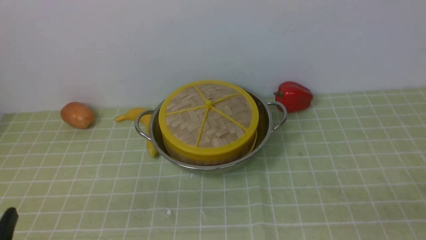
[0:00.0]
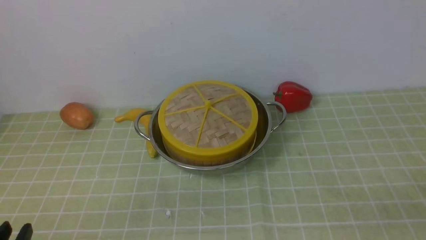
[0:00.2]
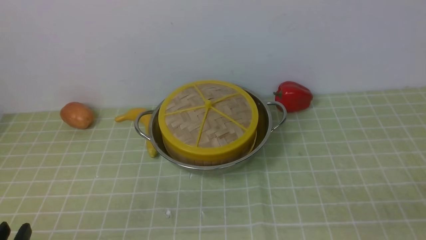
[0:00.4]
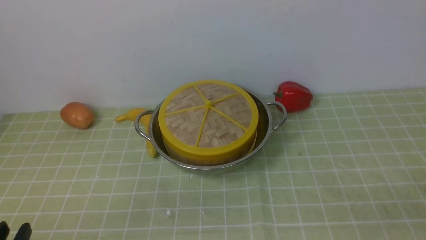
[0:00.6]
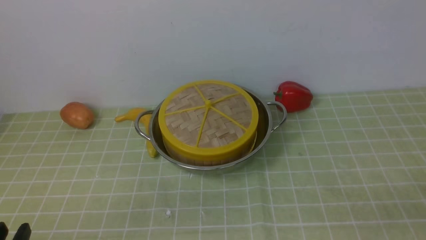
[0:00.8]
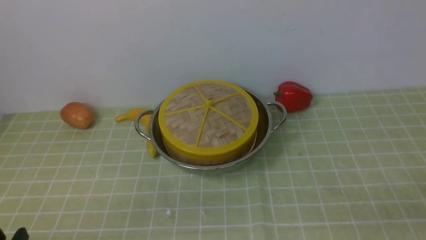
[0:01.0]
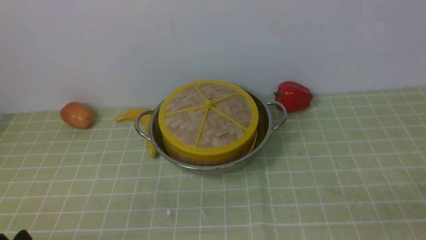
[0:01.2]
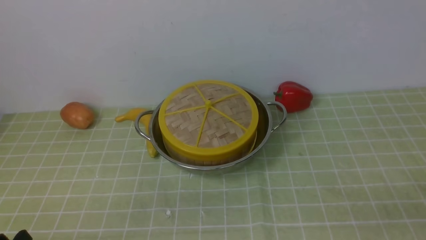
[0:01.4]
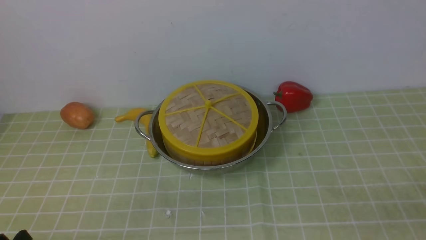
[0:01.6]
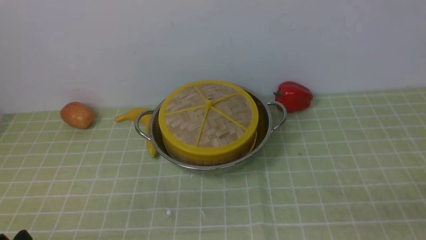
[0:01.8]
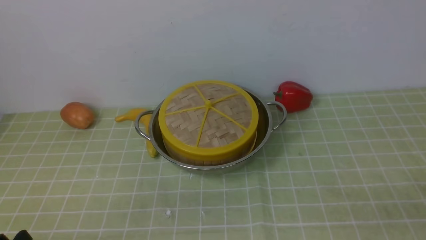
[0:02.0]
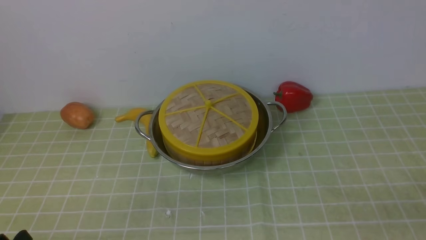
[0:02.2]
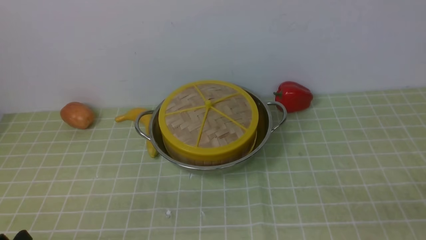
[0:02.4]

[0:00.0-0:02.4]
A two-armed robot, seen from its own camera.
Task of the whole recording: place the steamer in the pot on the green tablecloth, and put the lid on the steamer.
0:01.2 to 0:02.4: The two grippers keep their place.

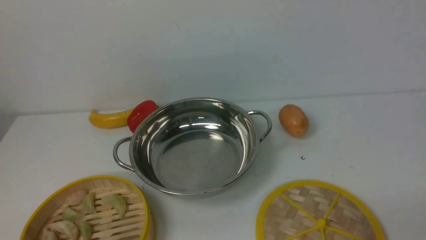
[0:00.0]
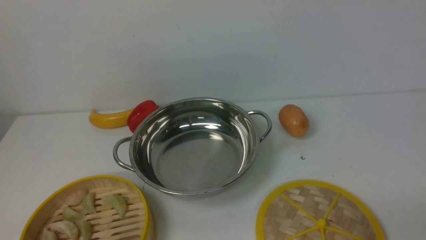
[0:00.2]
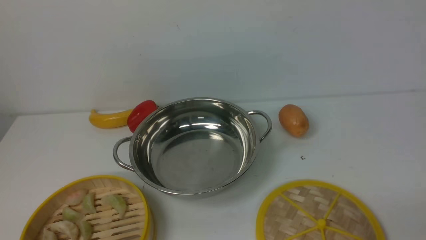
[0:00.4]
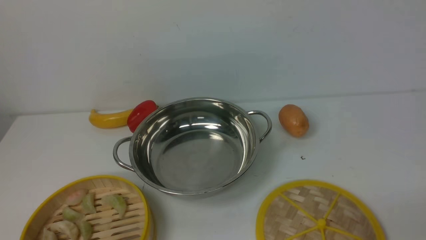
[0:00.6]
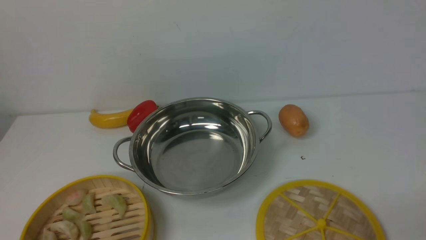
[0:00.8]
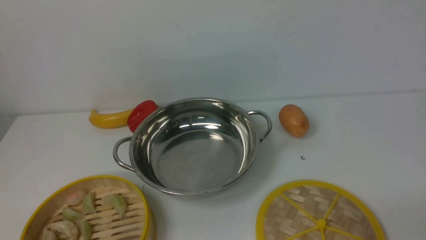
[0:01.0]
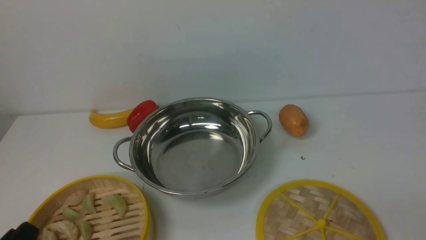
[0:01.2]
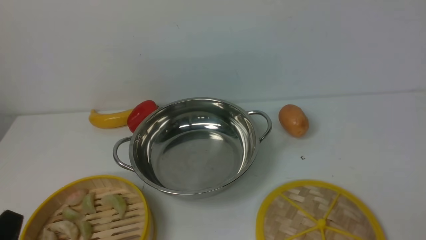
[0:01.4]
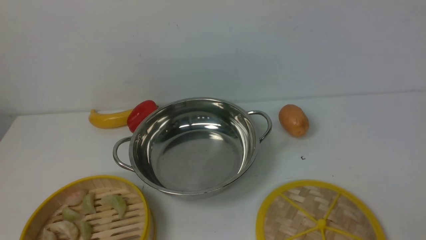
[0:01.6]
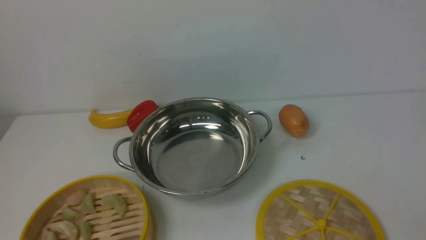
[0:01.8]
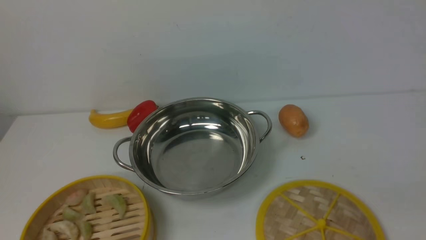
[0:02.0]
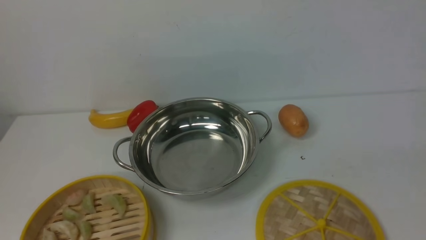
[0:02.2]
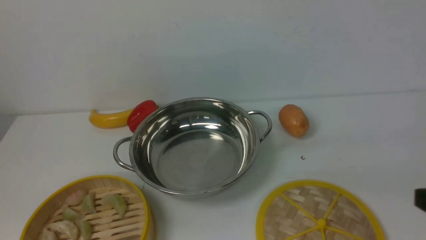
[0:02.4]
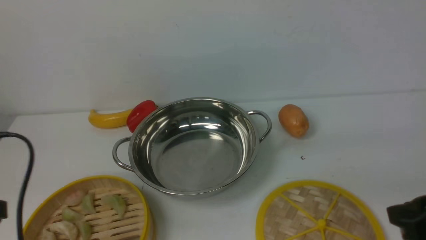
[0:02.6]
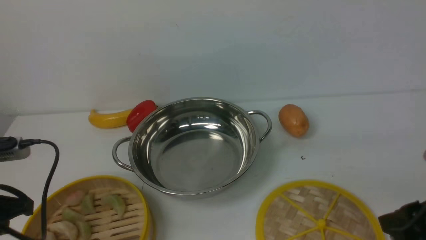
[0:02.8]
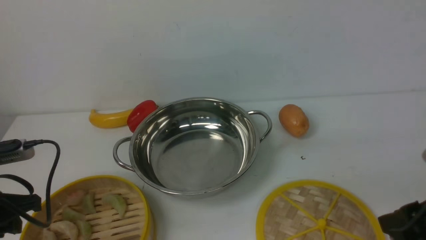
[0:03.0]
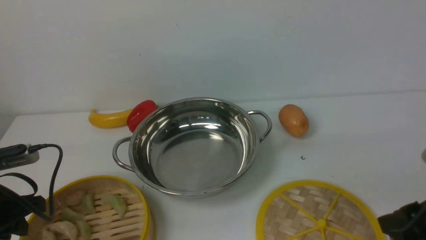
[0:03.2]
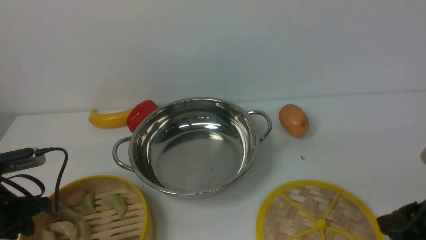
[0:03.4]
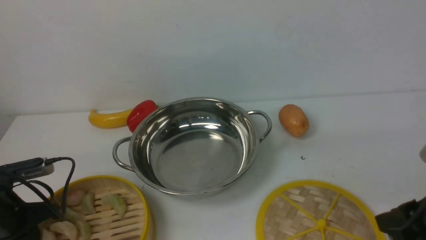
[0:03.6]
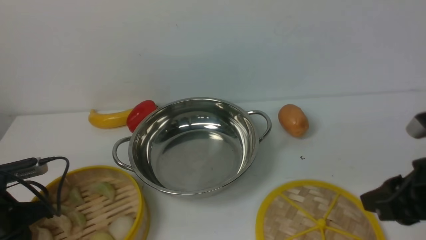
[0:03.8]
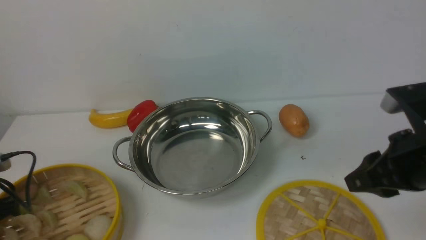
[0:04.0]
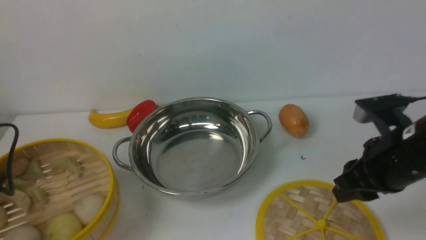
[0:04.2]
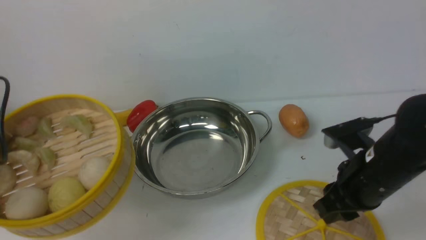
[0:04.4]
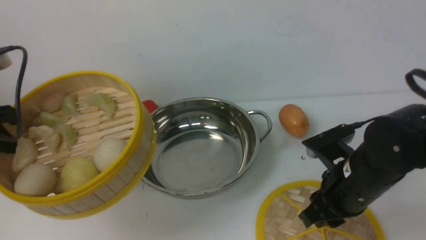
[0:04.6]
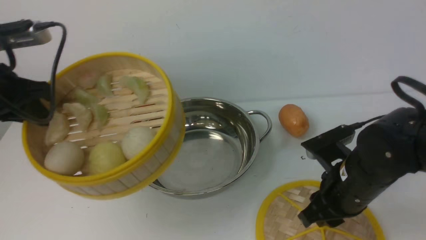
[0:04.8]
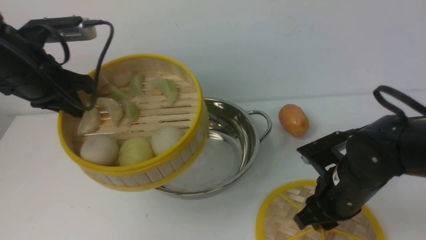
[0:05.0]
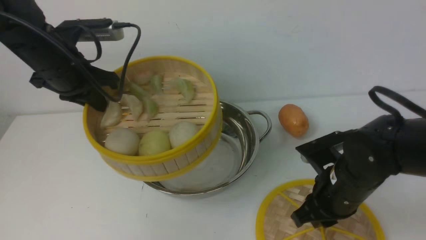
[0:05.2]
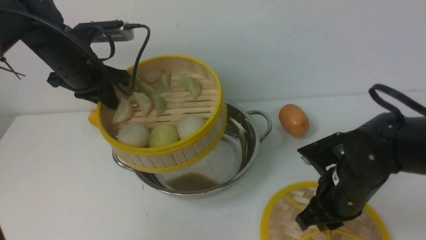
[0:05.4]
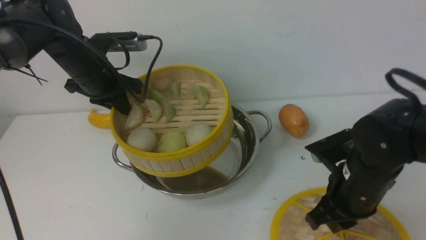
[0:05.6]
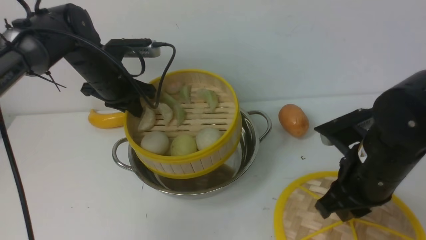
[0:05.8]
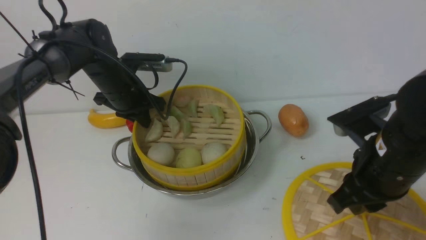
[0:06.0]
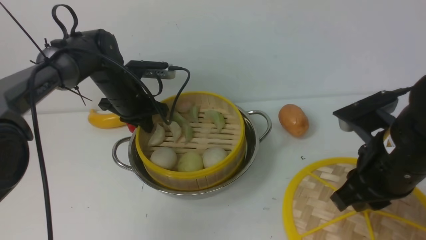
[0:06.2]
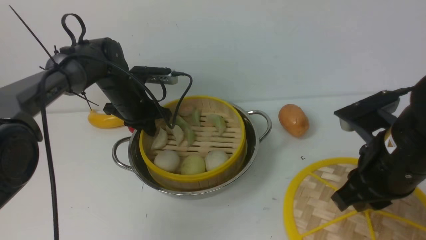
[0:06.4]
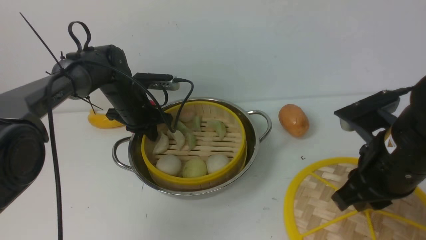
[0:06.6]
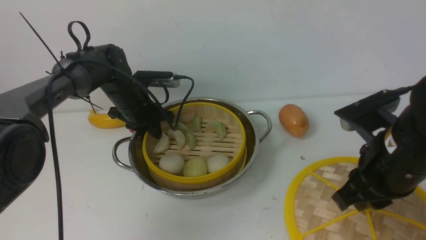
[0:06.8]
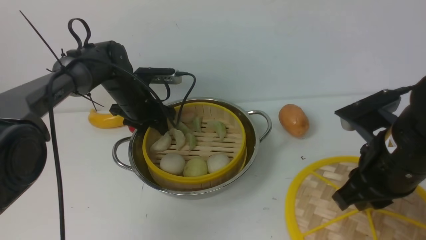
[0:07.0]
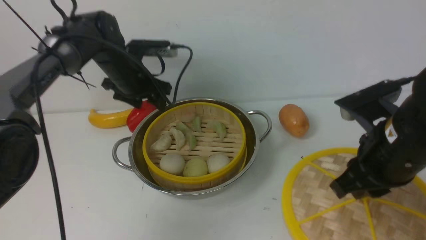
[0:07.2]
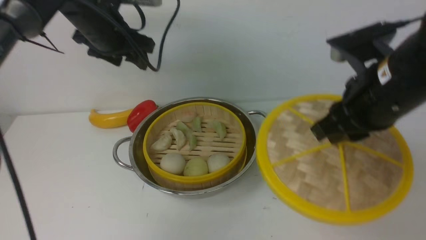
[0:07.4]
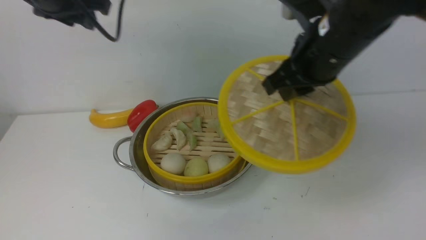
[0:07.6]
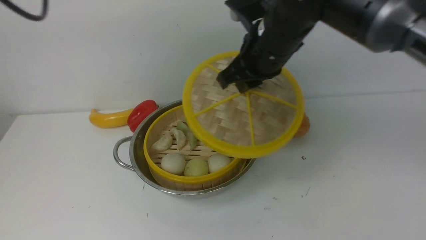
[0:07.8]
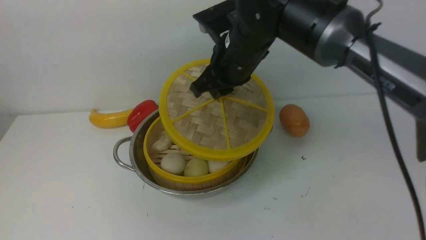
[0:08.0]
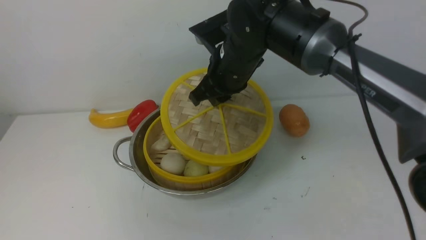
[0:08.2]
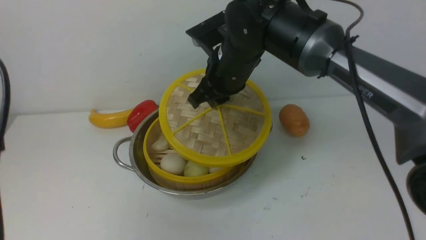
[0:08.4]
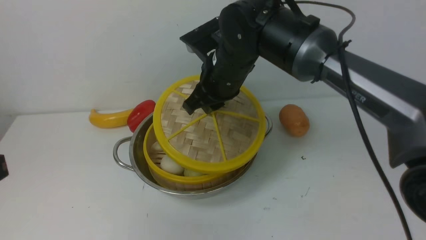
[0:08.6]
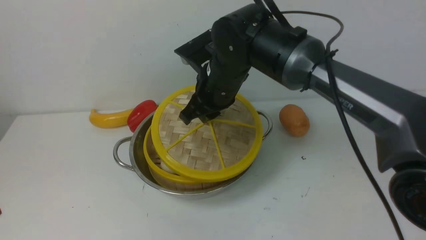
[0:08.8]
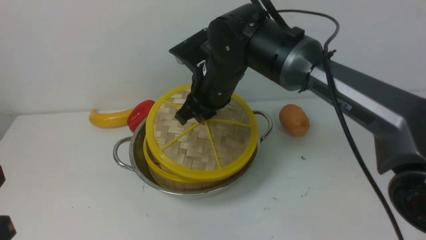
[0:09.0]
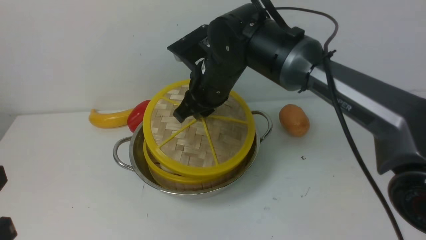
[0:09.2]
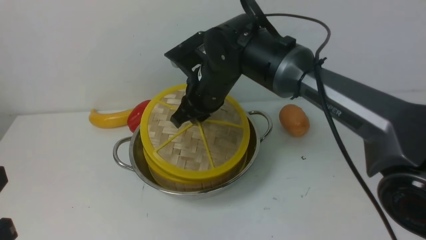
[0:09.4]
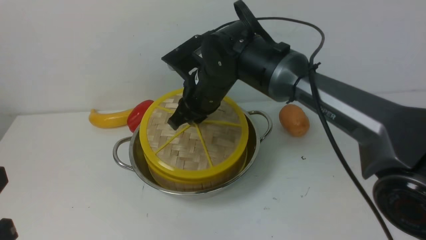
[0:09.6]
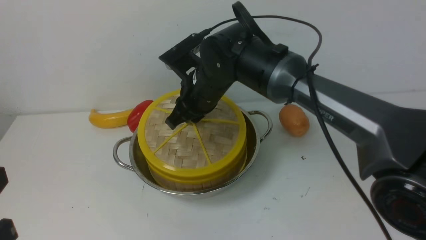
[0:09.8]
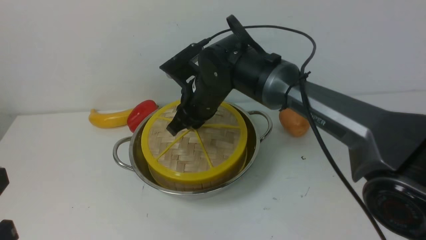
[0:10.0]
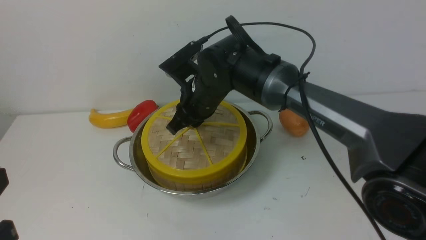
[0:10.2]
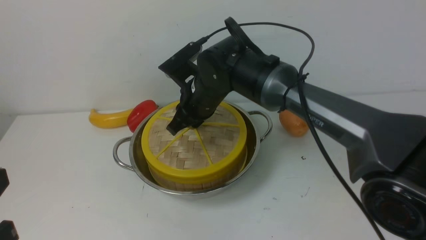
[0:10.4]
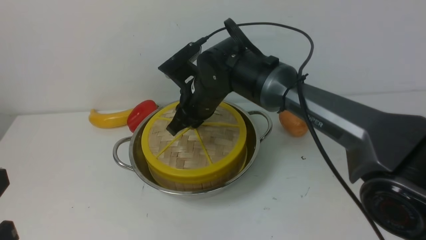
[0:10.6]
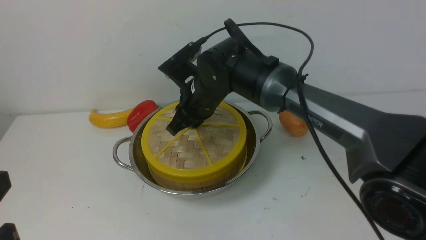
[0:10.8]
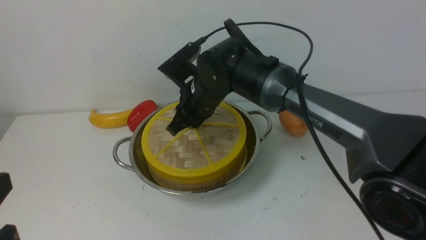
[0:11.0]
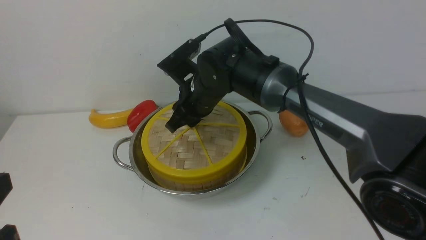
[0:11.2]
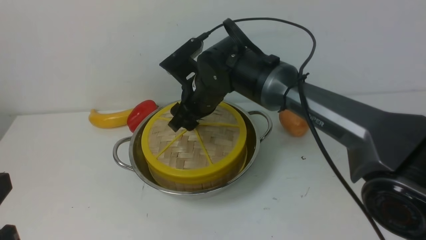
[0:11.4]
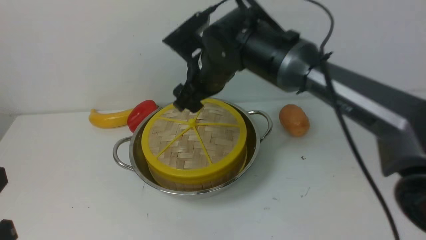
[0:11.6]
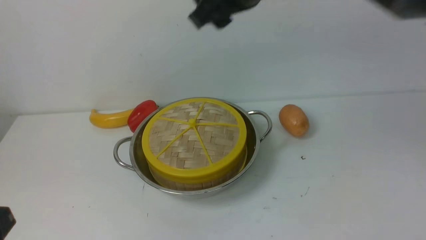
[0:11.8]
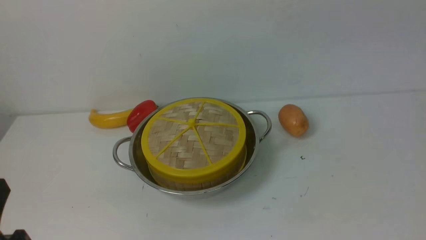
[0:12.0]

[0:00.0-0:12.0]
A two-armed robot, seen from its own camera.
Task of the whole recording: place the steamer in the pot on the white table, and put the lid on the steamer.
Step, 0:00.0 to 0:04.4: use the left arm to lift the steamer closest to it.
Step, 0:04.8 to 0:06.8: use the left arm to put the steamer into the iron steamer pot in the middle.
Step, 0:07.0 to 0:07.6: use the right arm to lift the lid of the steamer.
0:01.6 to 0:03.0: The right gripper is displaced forward and to the left by some 10 cm. Meanwhile the left gripper heads forward and to the left, covering some 20 cm.
0:03.0 to 0:04.4: The left gripper travels upward by roughly 5 cm, and closes. The right gripper shifts some 10 cm forward and to the left.
0:04.4 to 0:06.0: The left gripper is displaced forward and to the right by about 25 cm.
0:06.0 to 0:07.6: The left gripper goes approximately 20 cm upward, and opens up. Meanwhile the right gripper moves forward, upward and to the left, roughly 15 cm.
0:07.6 to 0:09.0: The right gripper shifts approximately 15 cm to the left, downward and forward; the left gripper is displaced backward by roughly 30 cm, and closes.
0:10.4 to 0:12.0: The right gripper goes some 35 cm upward, to the right and backward, and opens and closes again.

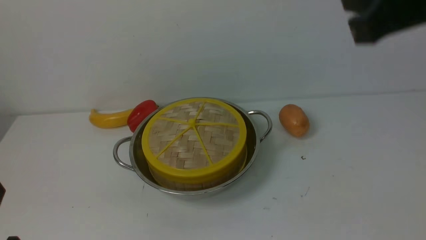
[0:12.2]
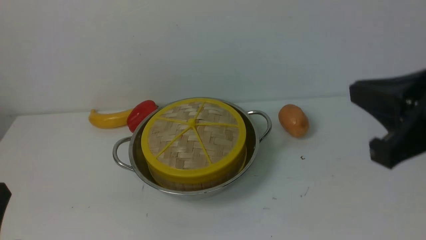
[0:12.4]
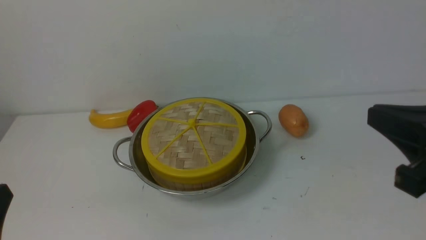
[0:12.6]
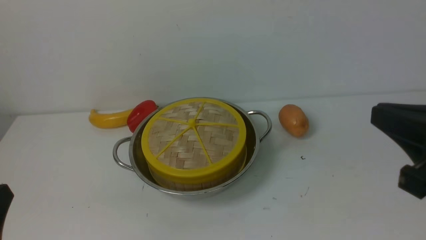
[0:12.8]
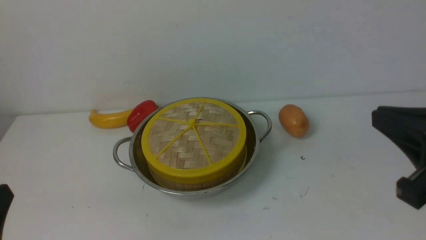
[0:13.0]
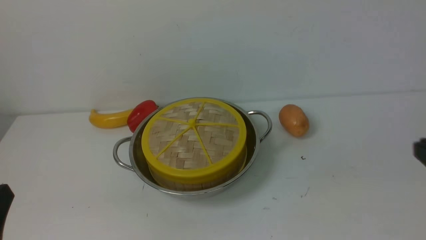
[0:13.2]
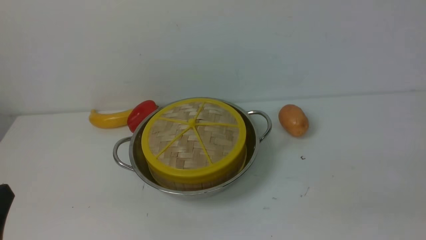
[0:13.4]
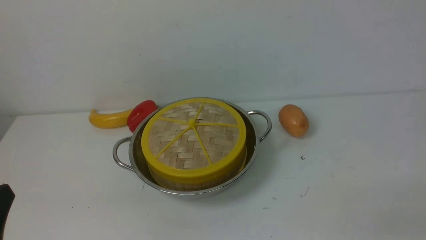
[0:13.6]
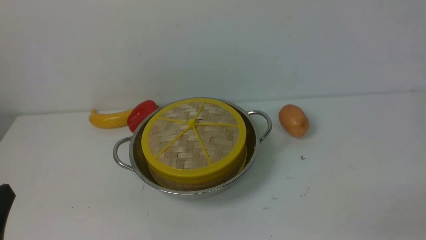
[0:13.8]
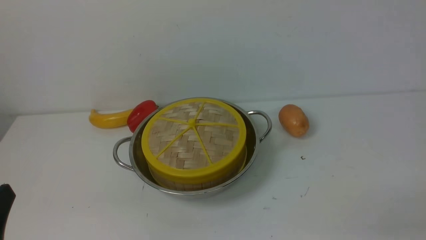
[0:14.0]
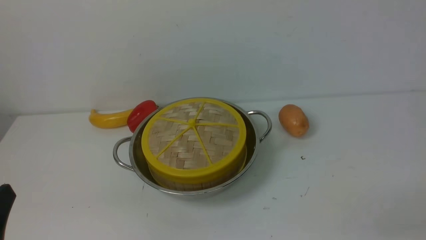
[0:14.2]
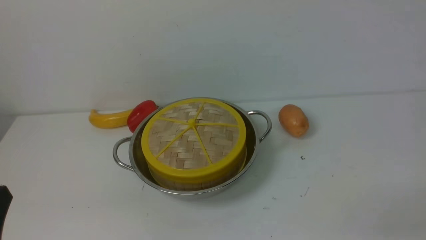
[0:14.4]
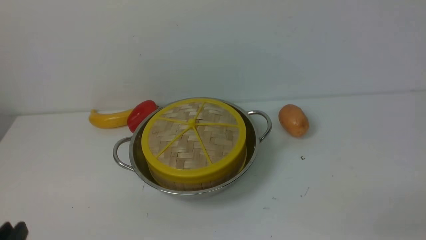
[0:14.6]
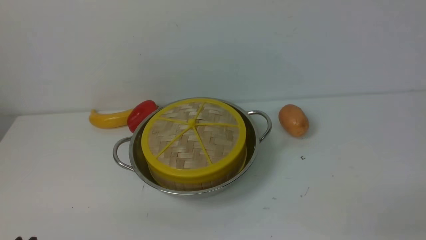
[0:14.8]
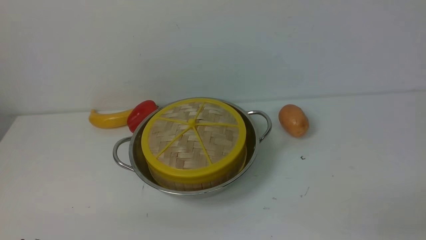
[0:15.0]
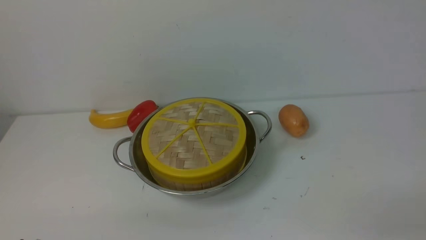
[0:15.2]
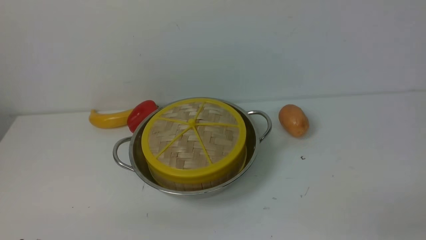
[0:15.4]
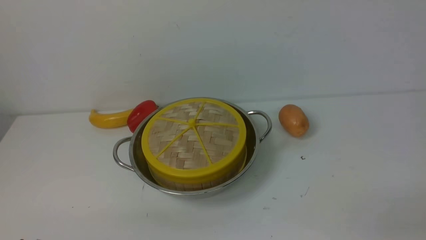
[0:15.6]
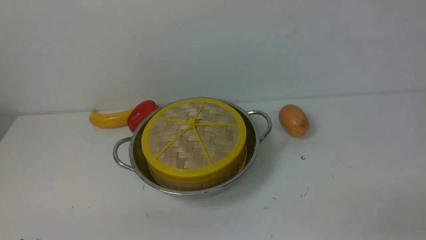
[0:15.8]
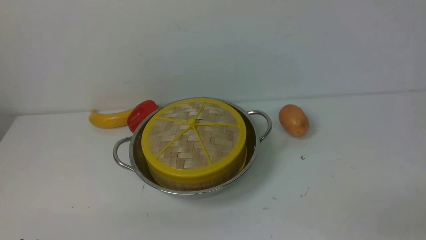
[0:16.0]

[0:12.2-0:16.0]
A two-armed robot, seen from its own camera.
Task of the whole recording: place the steamer in the pot on the white table, and put the lid on the steamer.
0:12.2 to 0:13.4: The right gripper shifts approximately 25 cm downward, backward and to the right.
0:14.8 to 0:16.0: Both grippers stay put.
